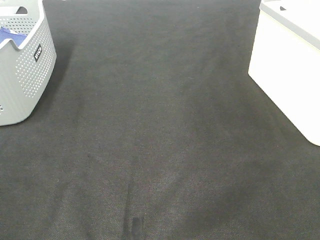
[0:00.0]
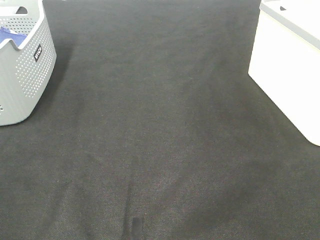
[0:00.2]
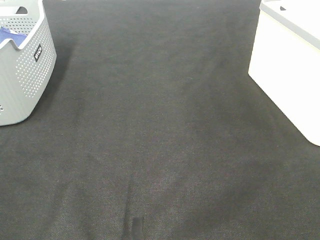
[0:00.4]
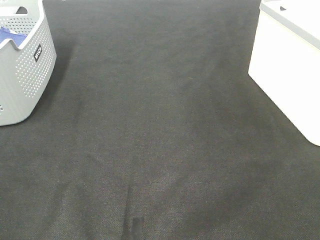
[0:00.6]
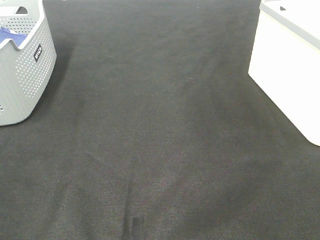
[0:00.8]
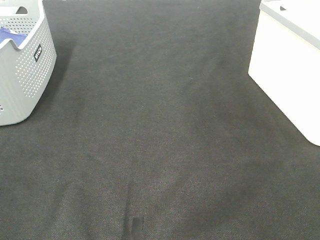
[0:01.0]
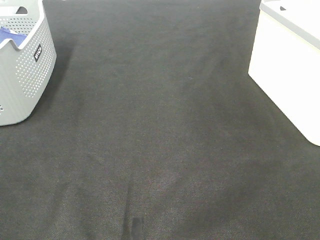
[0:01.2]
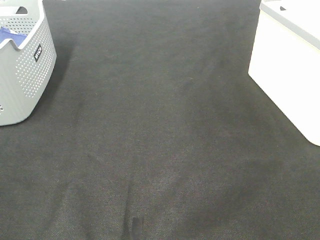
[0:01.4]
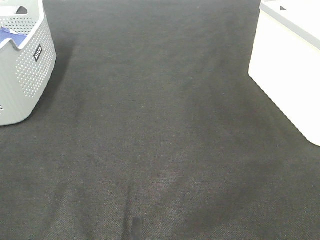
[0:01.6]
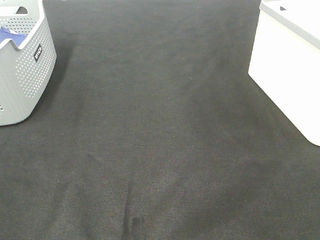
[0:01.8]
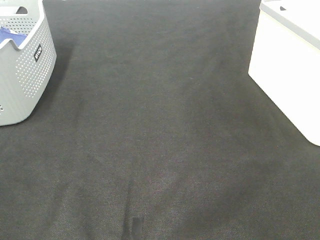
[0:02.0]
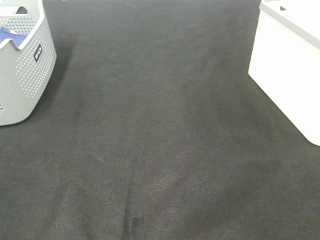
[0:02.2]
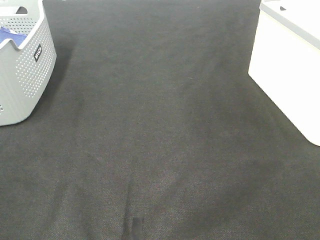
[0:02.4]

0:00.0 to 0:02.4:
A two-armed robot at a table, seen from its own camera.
0:01.2 to 0:02.4: Both grippers stay put.

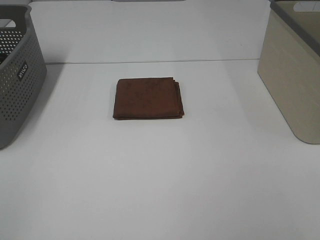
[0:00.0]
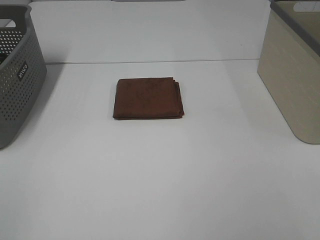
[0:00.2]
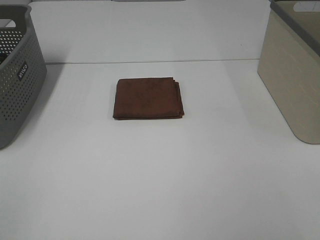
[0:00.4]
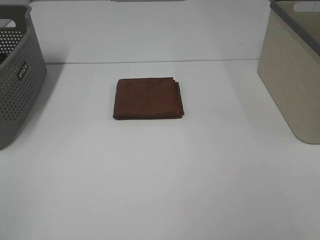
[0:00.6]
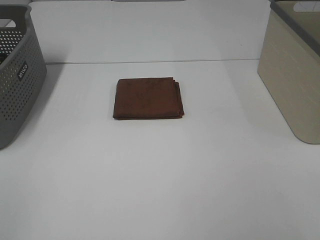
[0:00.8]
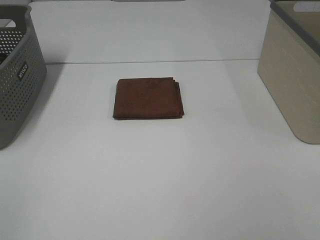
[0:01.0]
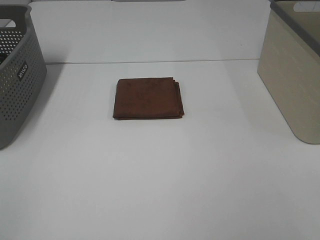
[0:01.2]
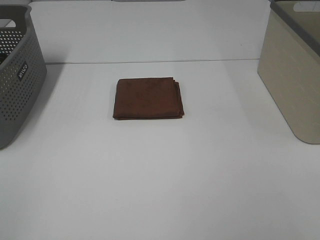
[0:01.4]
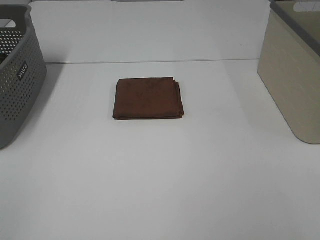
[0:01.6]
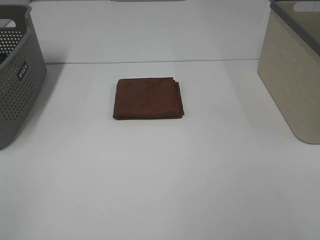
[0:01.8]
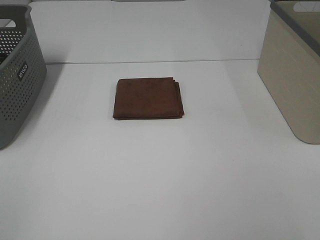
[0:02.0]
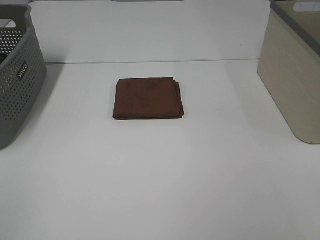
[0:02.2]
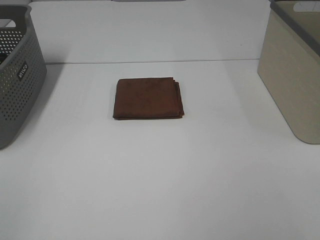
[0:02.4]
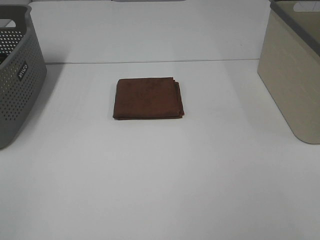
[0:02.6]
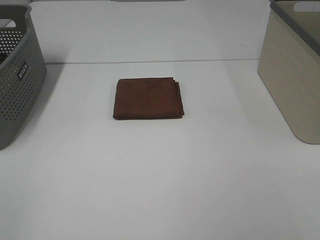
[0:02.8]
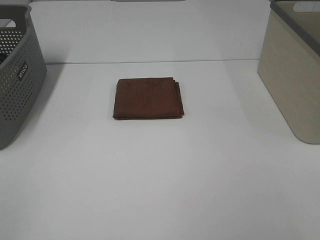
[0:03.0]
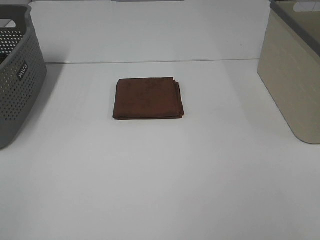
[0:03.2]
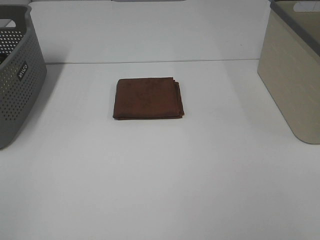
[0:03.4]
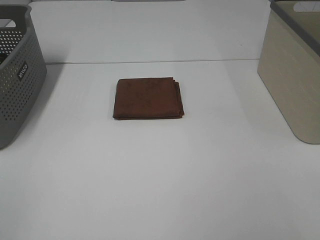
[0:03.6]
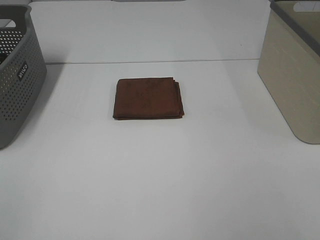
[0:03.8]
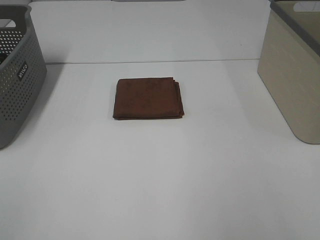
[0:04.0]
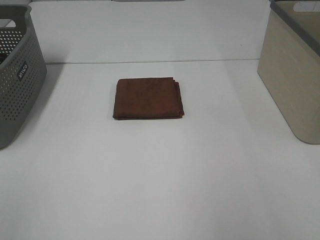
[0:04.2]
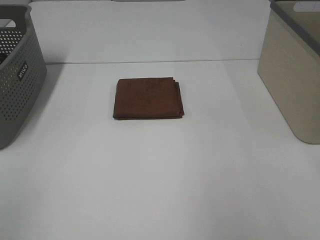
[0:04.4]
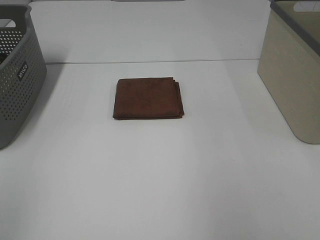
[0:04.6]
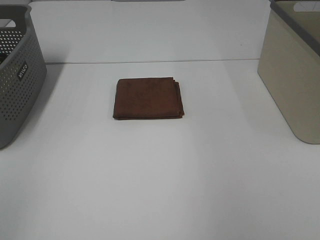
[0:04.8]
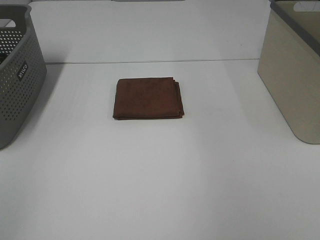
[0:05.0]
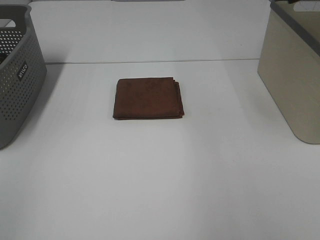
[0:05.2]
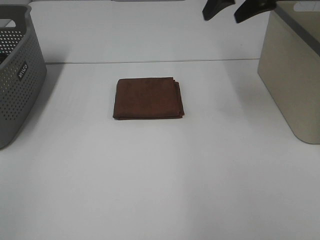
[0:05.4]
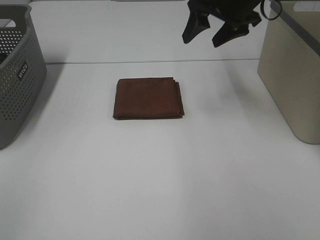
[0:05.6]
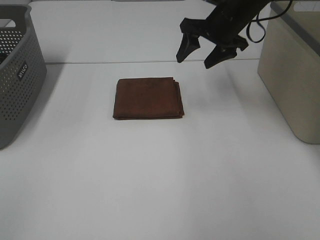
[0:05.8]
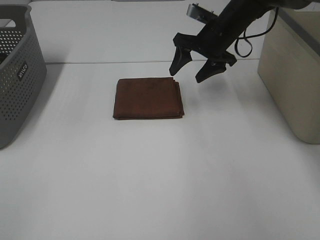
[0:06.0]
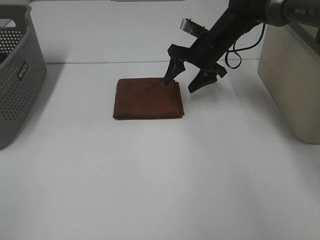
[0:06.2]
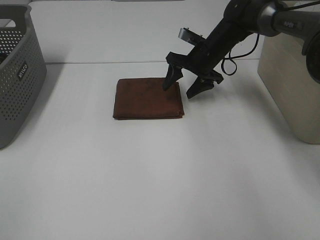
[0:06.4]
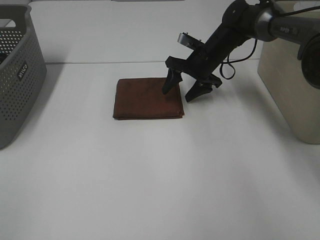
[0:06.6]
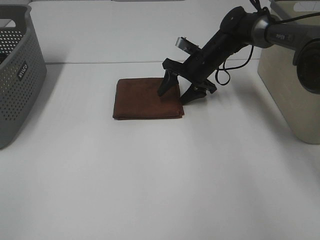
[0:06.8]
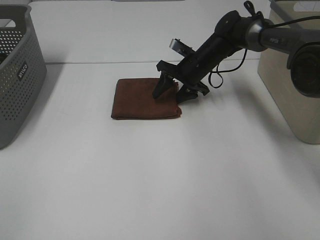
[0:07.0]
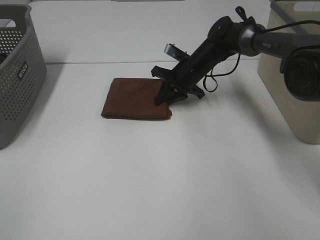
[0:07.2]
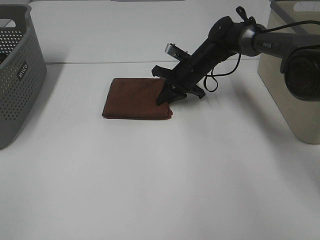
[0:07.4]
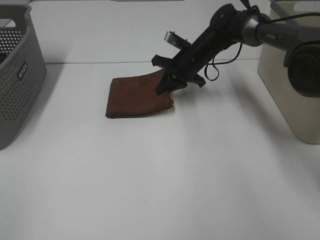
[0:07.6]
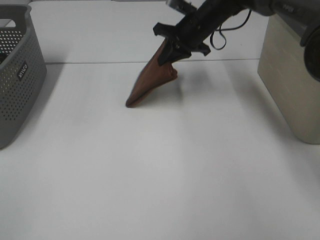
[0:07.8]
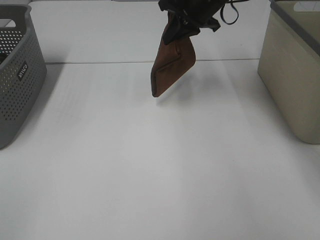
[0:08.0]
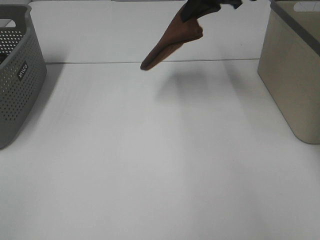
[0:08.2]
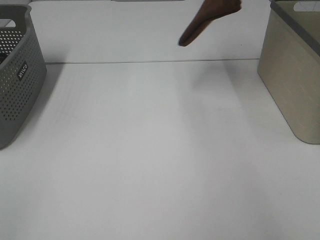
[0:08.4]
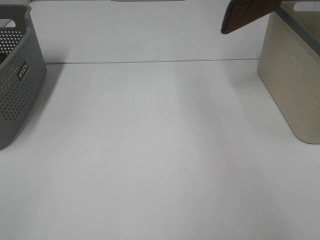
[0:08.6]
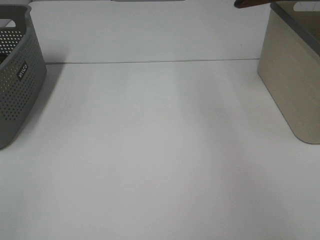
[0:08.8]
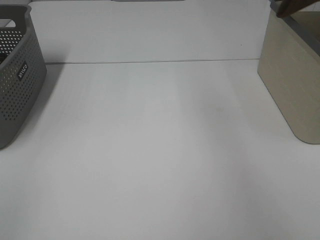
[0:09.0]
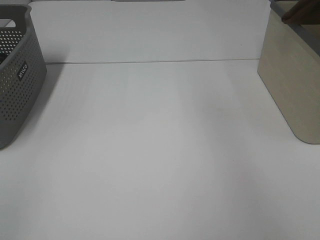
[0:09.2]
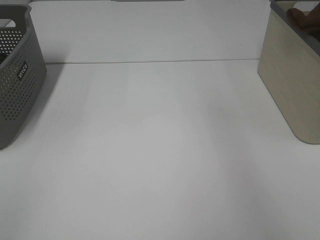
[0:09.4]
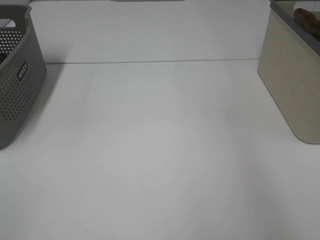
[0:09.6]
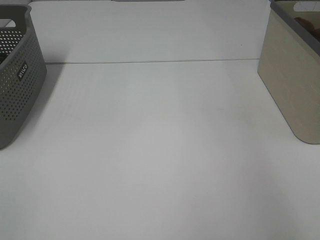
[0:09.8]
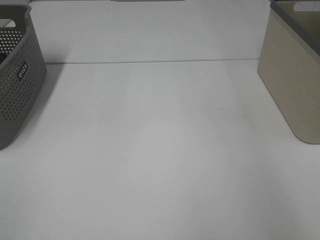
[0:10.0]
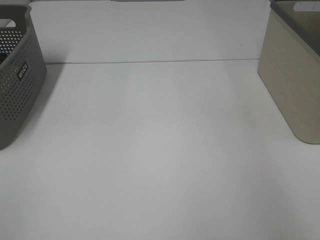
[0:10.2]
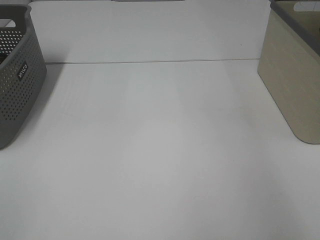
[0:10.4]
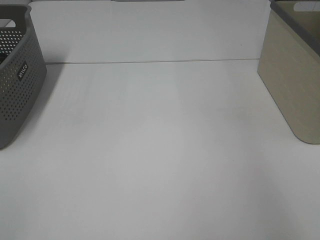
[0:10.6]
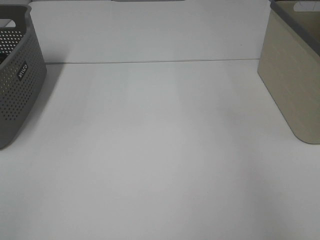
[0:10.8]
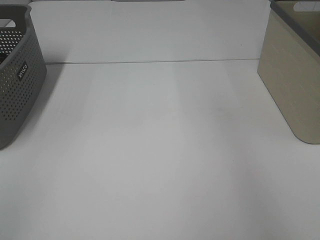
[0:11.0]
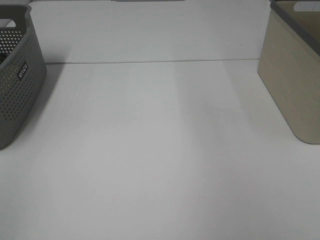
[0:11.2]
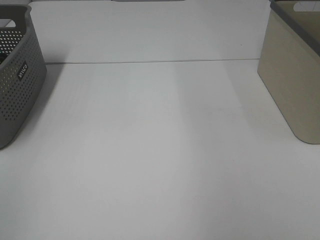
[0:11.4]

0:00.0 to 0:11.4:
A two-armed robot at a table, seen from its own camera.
Step, 0:00.0 to 0:07.4: Right hand: grab the folded brown towel.
Step, 0:07.6 to 0:10.2: Right hand: place the brown towel in right basket.
0:00.0 to 0:02.8: Both grippers stay put.
0:04.2 to 0:05.6: The right gripper travels forward and to the left by about 35 cm.
0:05.6 to 0:07.2: The right gripper moves downward, about 20 cm, and closes up.
0:07.2 to 0:08.6: The right gripper goes approximately 35 cm upward and to the right.
0:08.6 to 0:10.0: The right gripper travels to the right and downward by roughly 15 cm, and opens.

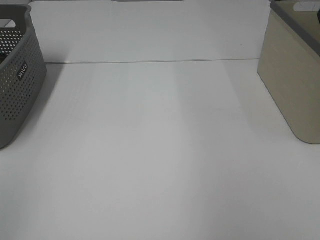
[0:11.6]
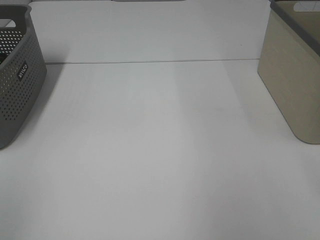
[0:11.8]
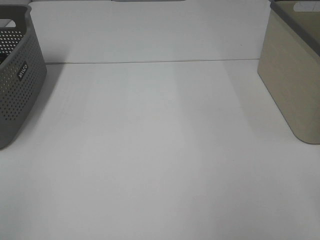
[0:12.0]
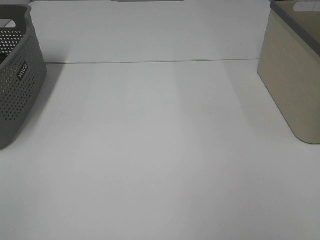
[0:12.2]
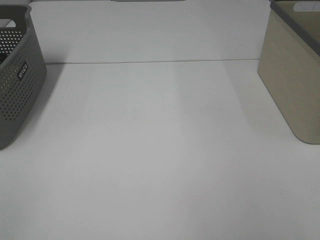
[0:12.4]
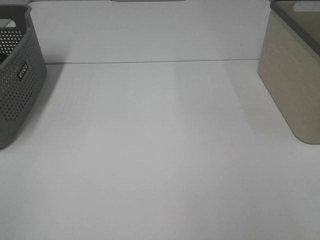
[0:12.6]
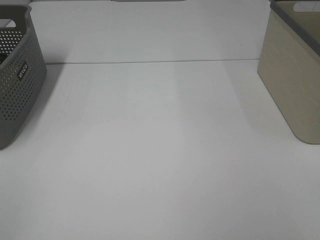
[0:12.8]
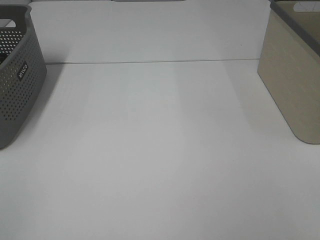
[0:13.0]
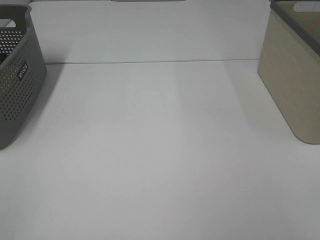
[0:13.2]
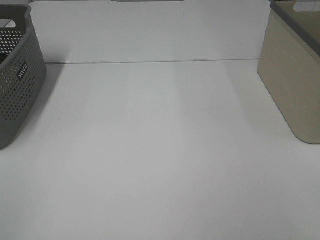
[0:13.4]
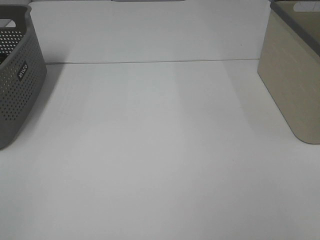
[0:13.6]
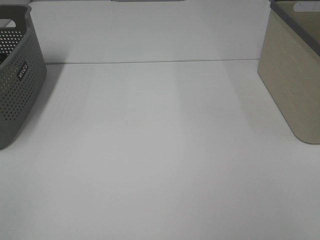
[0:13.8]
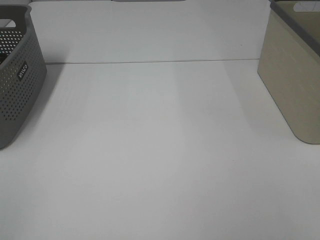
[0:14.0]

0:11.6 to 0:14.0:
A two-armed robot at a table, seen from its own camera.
0:12.8 to 0:14.0: Neither gripper changes place.

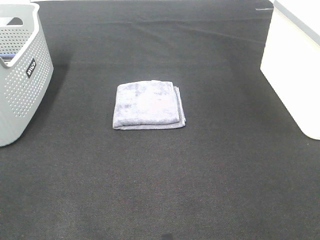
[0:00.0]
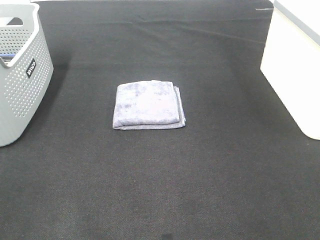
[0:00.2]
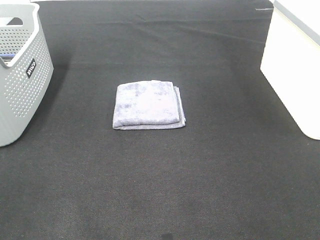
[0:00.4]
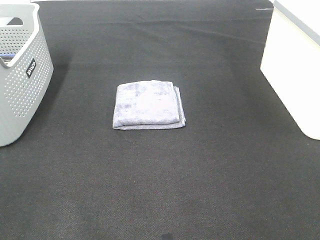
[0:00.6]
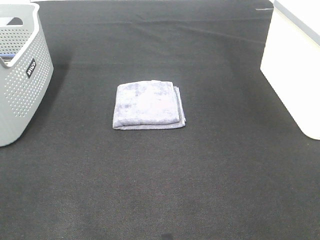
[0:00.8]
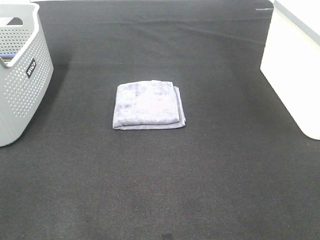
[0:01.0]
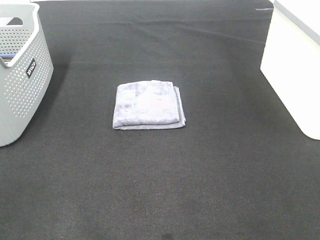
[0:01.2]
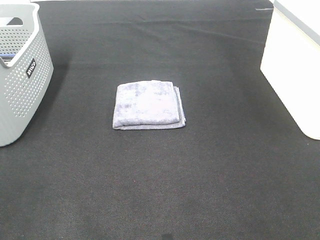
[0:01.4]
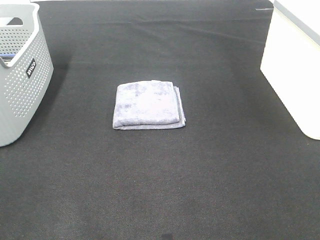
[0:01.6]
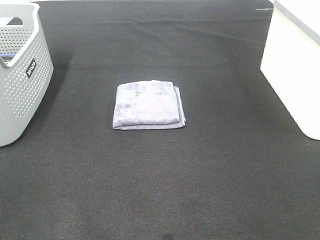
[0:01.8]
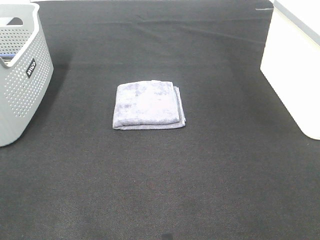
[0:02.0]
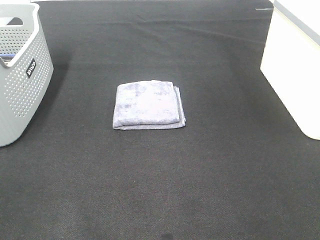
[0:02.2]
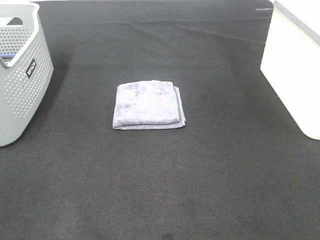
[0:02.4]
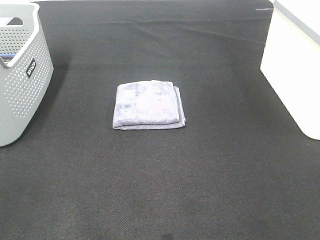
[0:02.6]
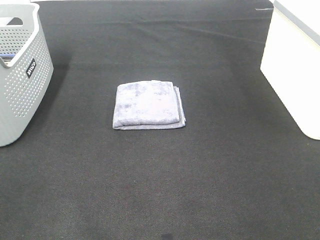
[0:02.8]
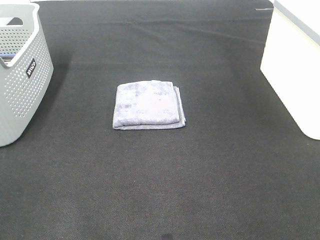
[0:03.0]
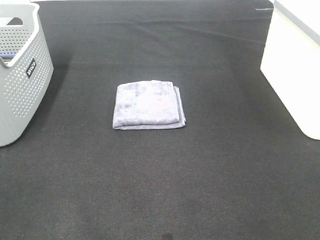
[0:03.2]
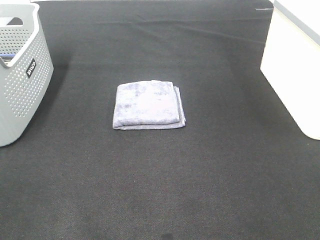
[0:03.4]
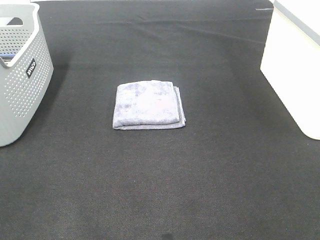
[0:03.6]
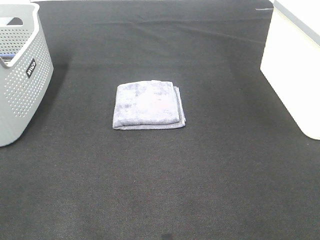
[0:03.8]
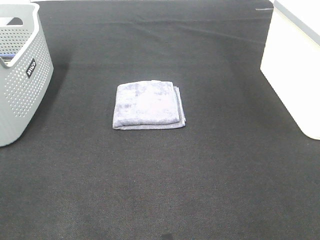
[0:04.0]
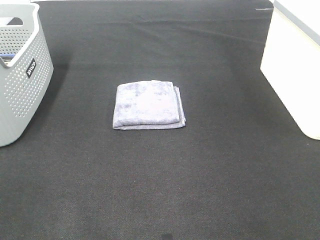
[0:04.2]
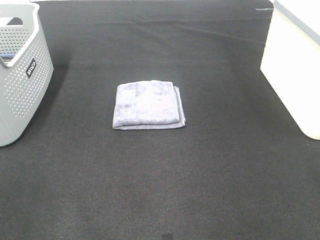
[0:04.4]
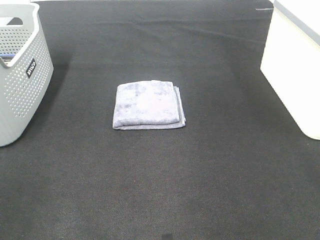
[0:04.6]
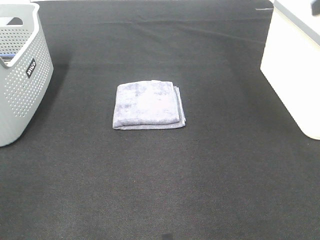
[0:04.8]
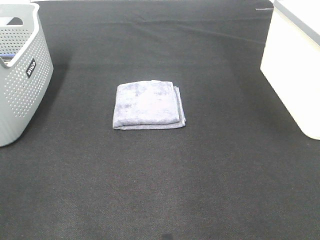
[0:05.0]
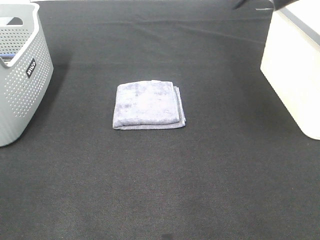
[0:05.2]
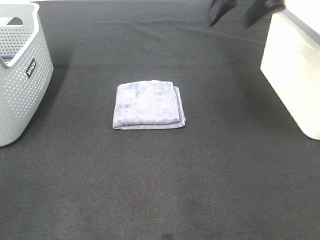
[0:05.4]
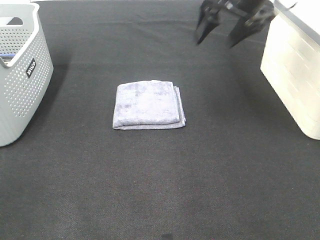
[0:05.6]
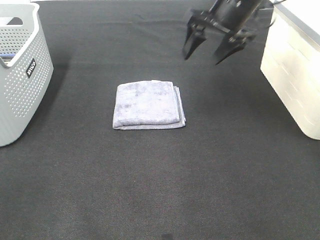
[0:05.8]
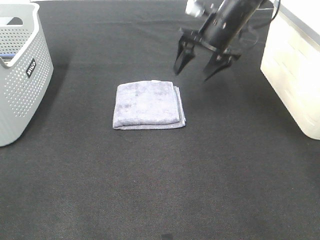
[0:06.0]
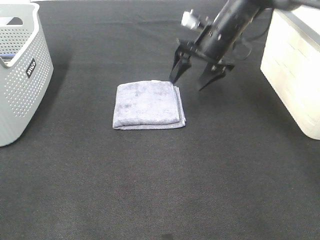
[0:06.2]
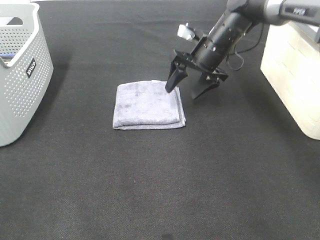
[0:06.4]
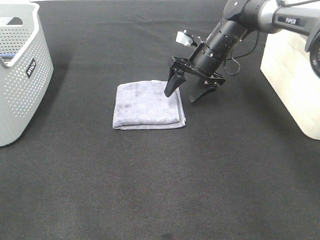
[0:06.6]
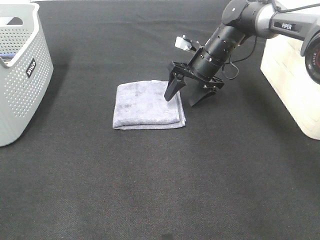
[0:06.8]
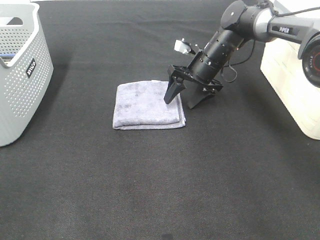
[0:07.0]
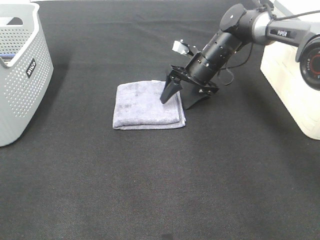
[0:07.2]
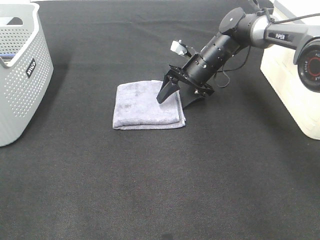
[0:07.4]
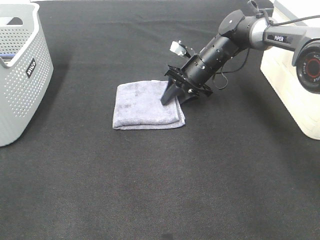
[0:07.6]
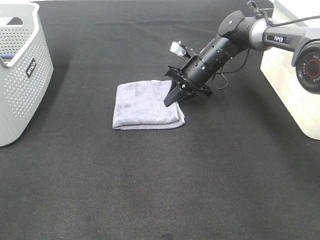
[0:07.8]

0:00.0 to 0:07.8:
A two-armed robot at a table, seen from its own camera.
Step, 0:00.0 to 0:07.8: Right hand: grab the folded grey towel.
0:00.0 to 0:03.2: Both grippers stay about where they are.
0:04.6 to 0:06.2: The right gripper is displaced forward, downward and to the left by approximately 40 cm.
0:06.2 to 0:07.8: The right gripper moves downward, approximately 5 cm, and closes.
